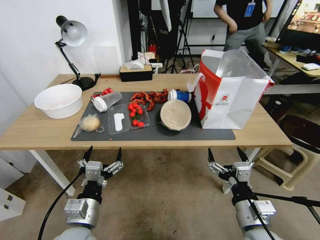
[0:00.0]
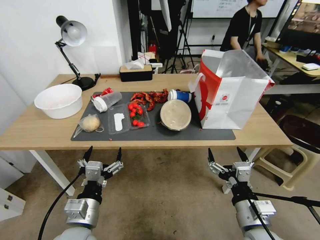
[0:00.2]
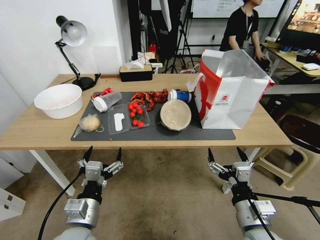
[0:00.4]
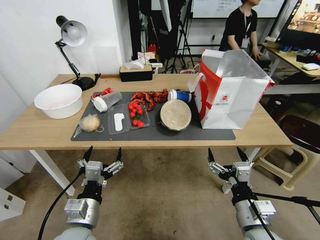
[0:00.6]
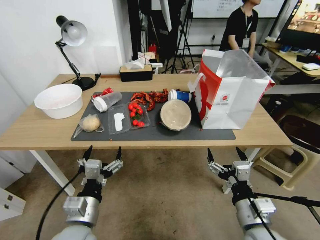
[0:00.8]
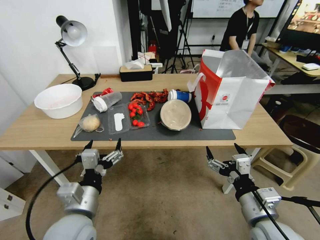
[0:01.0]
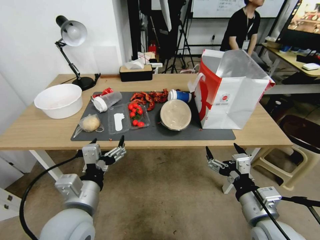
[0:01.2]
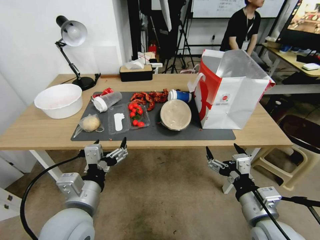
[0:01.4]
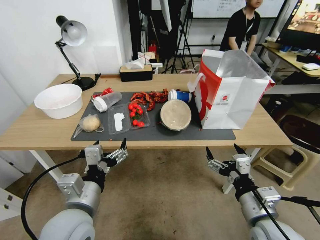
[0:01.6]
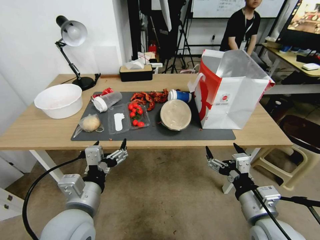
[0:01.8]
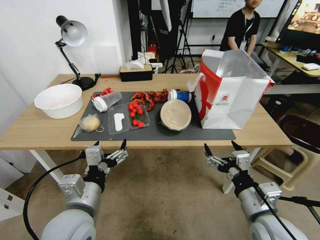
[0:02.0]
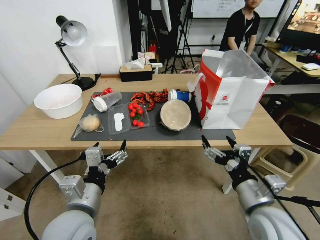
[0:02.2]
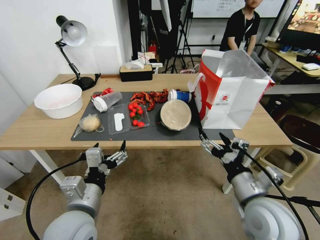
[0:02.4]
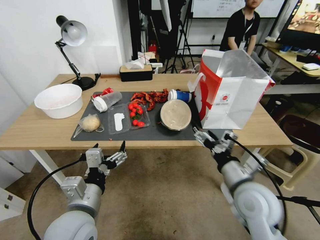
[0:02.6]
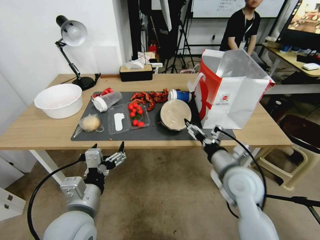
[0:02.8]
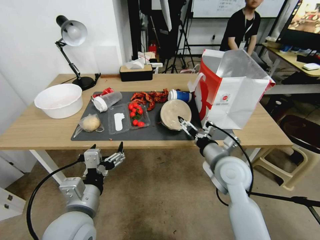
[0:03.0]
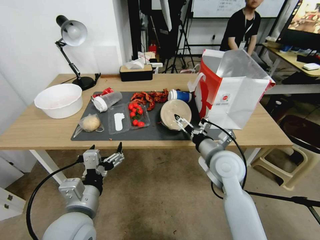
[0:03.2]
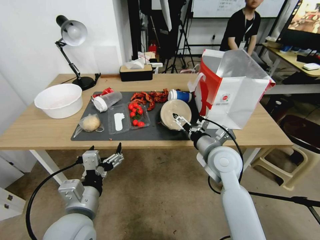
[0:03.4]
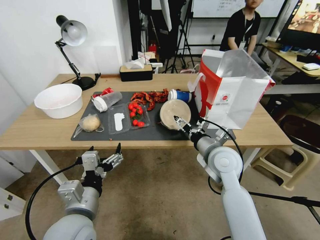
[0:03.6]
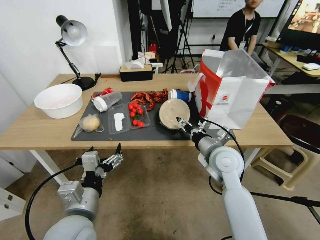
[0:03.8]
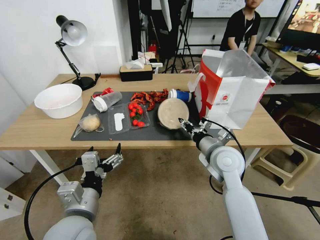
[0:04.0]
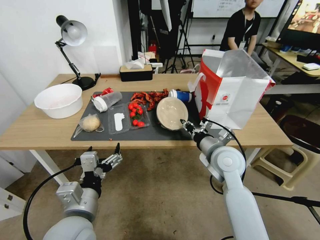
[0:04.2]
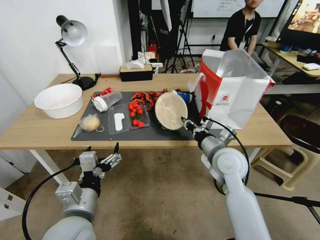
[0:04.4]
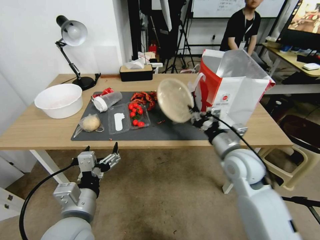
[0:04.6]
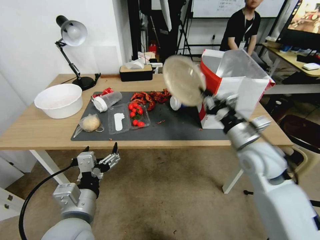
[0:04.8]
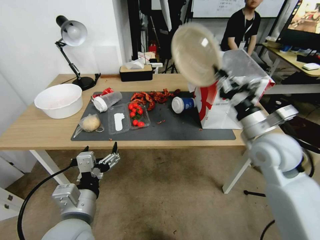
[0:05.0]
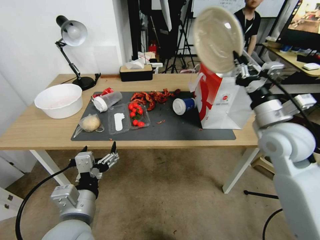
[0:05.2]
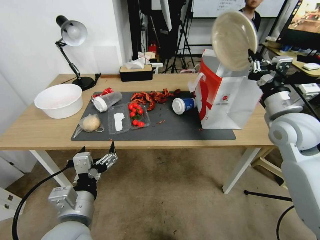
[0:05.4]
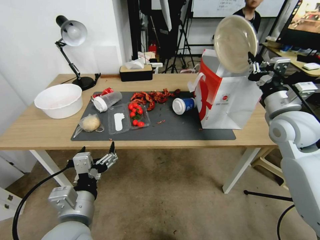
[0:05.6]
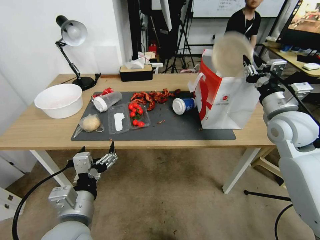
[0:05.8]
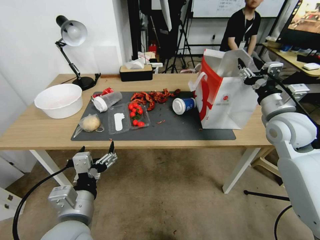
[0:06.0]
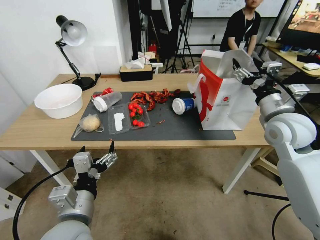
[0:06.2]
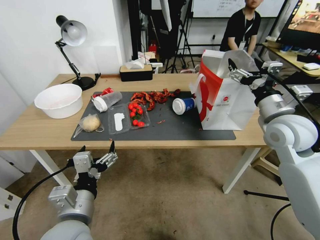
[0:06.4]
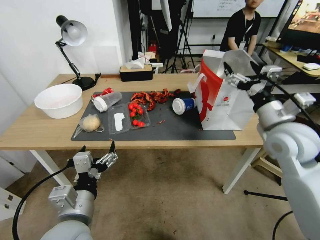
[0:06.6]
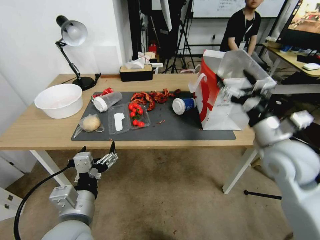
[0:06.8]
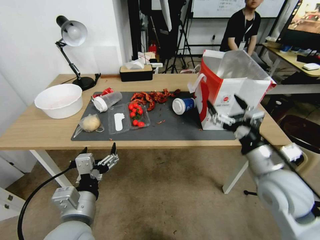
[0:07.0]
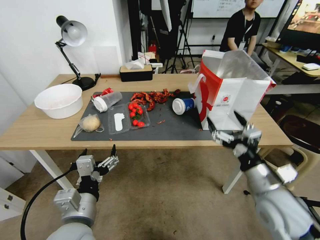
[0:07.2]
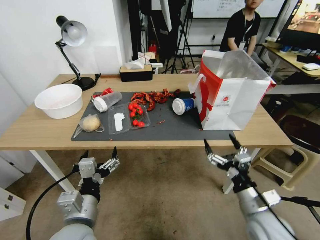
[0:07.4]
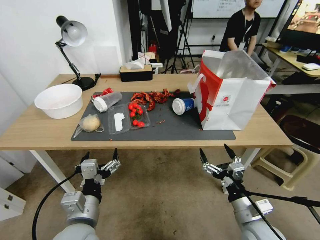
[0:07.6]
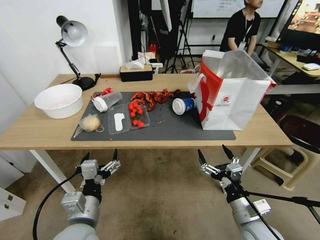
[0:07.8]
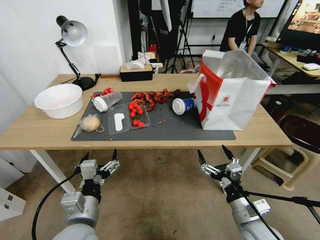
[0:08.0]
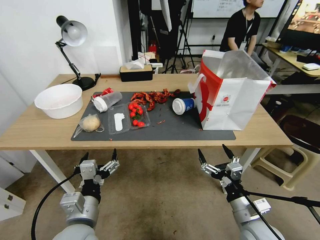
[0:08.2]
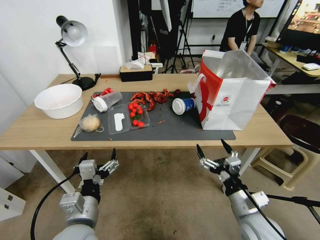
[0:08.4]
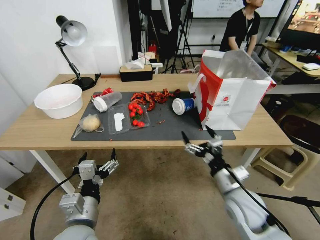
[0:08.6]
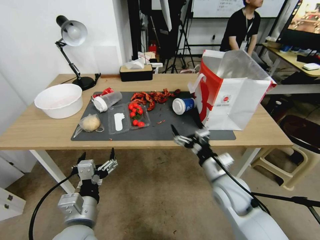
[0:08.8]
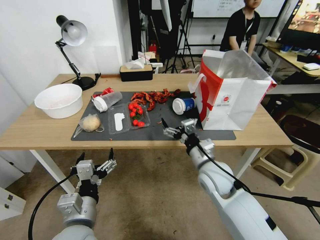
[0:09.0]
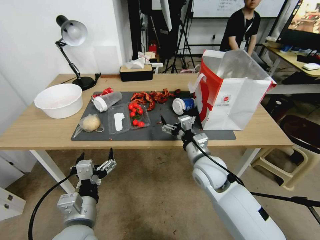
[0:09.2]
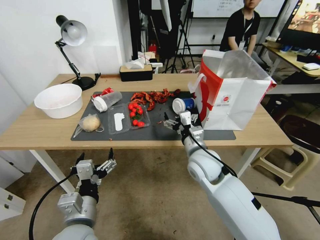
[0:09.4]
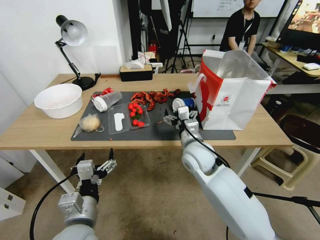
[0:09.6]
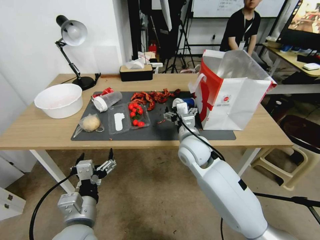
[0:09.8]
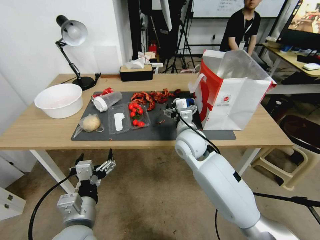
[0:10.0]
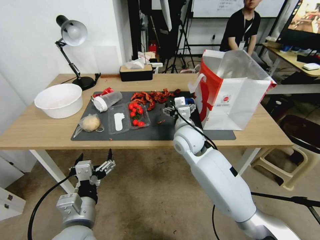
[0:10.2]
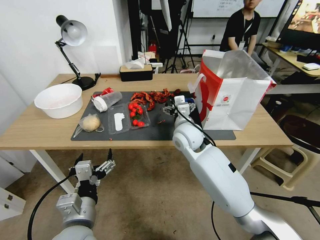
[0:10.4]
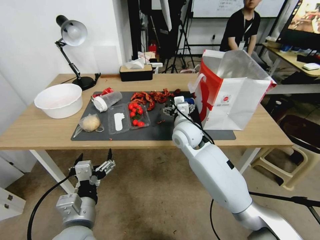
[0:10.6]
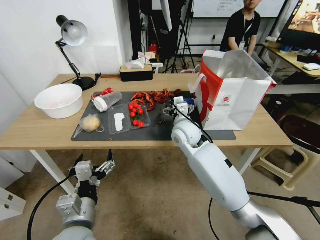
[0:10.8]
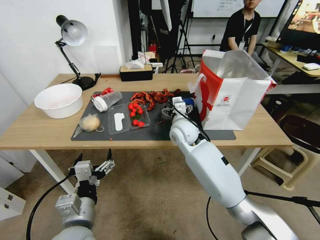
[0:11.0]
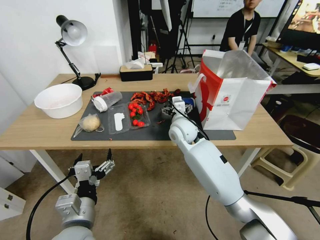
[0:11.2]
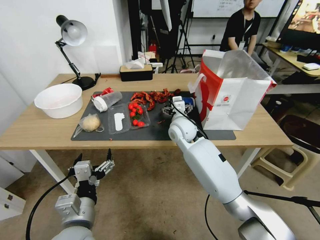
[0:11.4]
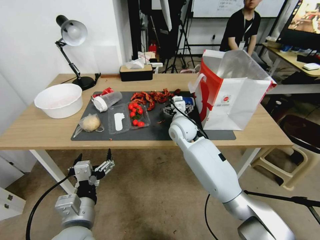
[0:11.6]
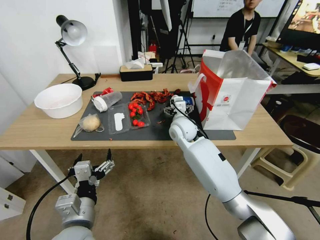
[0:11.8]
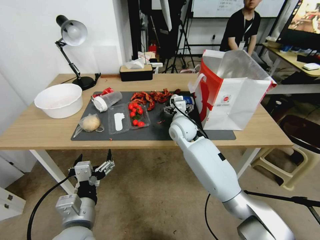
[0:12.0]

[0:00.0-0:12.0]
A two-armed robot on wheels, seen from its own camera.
0:01.6 to 0:03.0: The right gripper is displaced forward by roughly 15 cm.
0:03.0 to 0:04.4: The right gripper closes.
0:04.4 to 0:06.0: The right gripper shifts about 15 cm to the right and upward, and opens its fingers.
0:06.0 to 0:07.6: The right gripper shifts about 30 cm backward and downward, and opens.
0:07.6 to 0:09.0: The right gripper travels forward, to the left and upward by roughly 20 cm.
0:09.0 to 0:10.4: The right gripper travels forward, to the left and upward by approximately 15 cm.
0:10.4 to 0:12.0: The right gripper shifts about 5 cm forward.

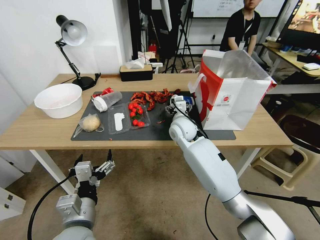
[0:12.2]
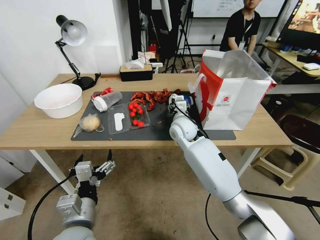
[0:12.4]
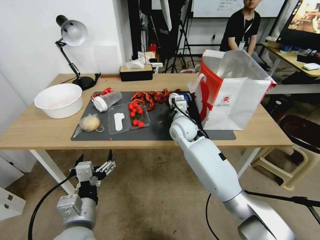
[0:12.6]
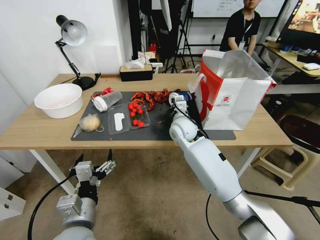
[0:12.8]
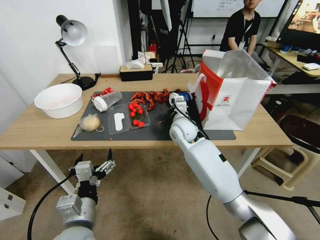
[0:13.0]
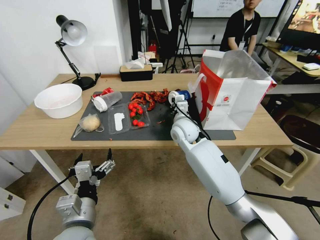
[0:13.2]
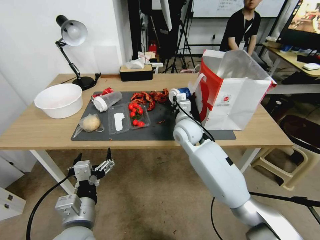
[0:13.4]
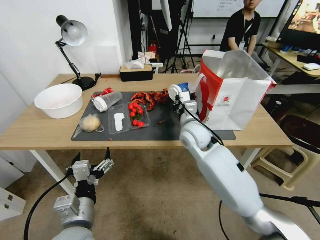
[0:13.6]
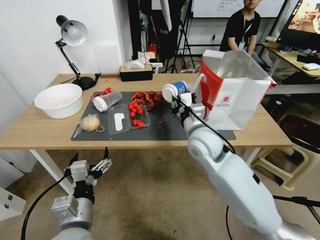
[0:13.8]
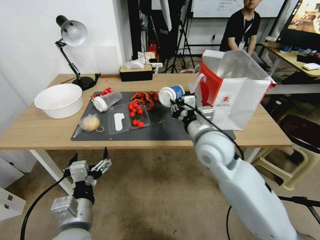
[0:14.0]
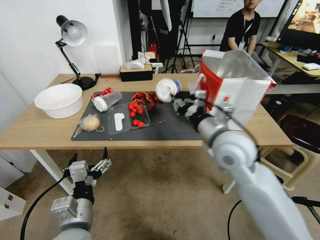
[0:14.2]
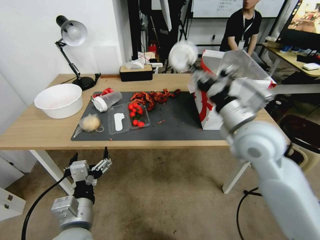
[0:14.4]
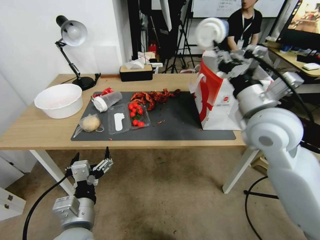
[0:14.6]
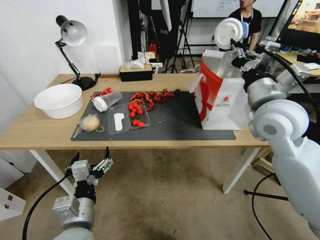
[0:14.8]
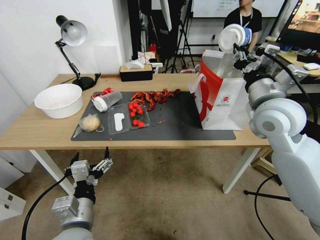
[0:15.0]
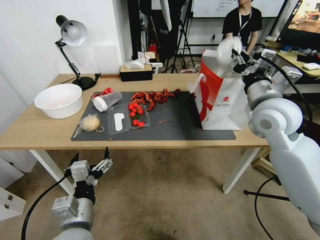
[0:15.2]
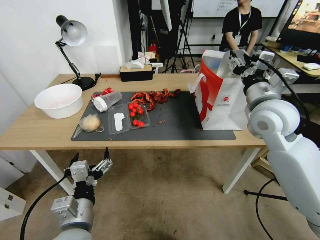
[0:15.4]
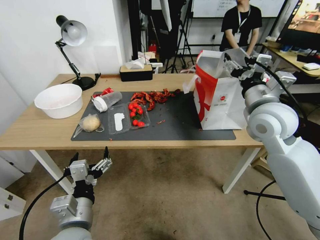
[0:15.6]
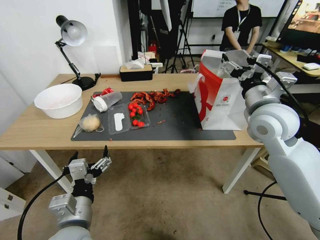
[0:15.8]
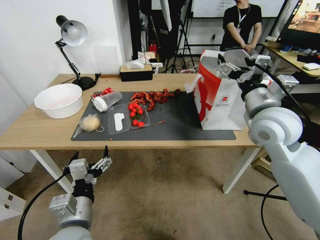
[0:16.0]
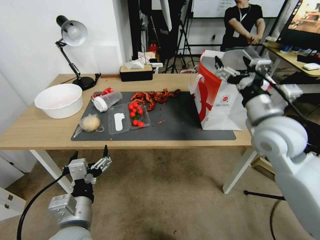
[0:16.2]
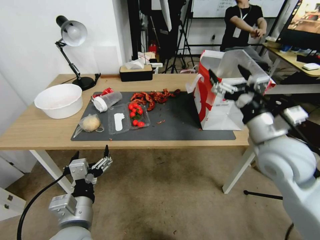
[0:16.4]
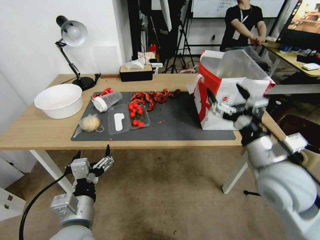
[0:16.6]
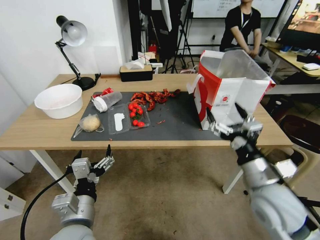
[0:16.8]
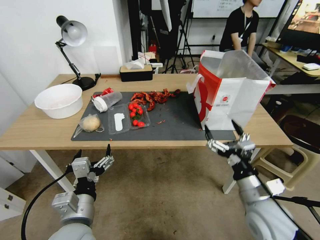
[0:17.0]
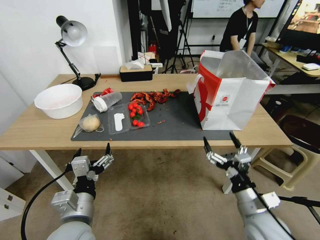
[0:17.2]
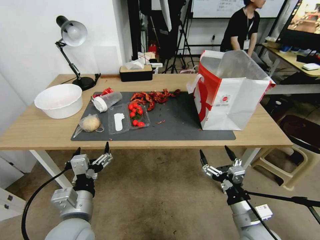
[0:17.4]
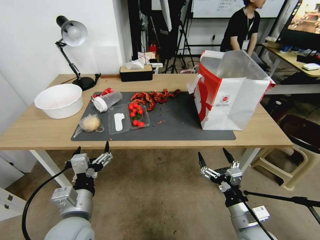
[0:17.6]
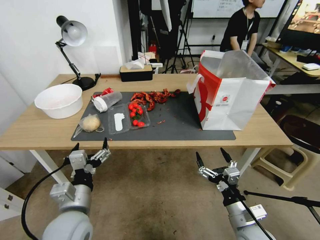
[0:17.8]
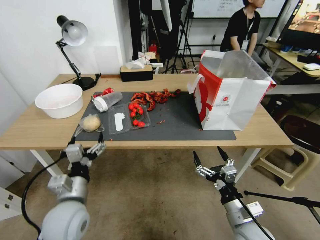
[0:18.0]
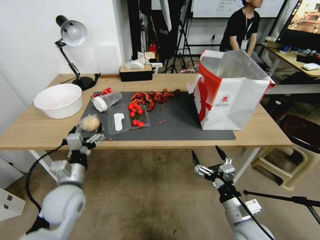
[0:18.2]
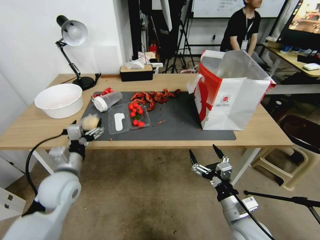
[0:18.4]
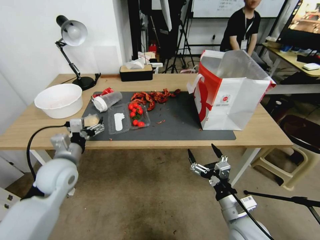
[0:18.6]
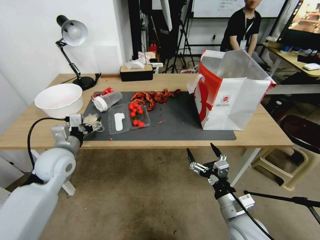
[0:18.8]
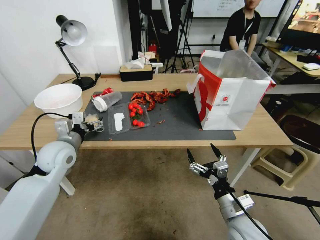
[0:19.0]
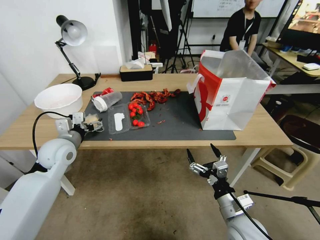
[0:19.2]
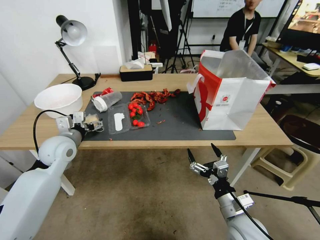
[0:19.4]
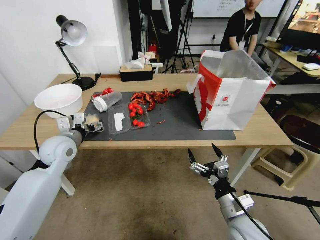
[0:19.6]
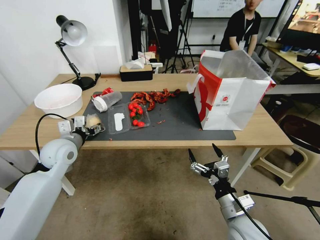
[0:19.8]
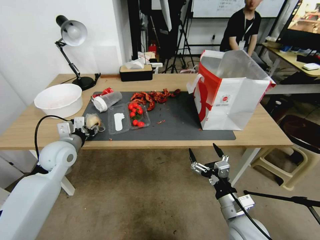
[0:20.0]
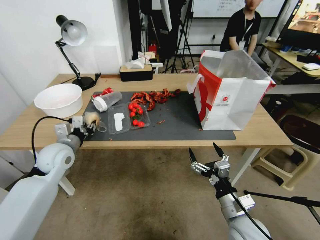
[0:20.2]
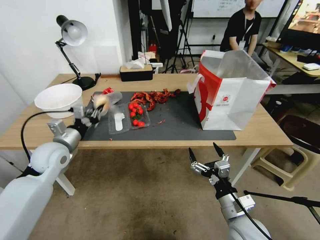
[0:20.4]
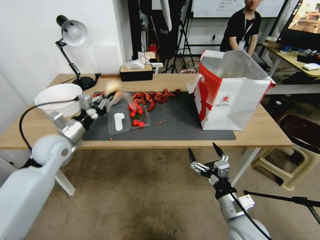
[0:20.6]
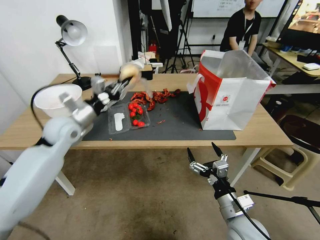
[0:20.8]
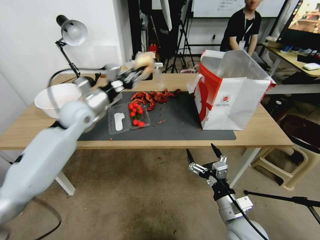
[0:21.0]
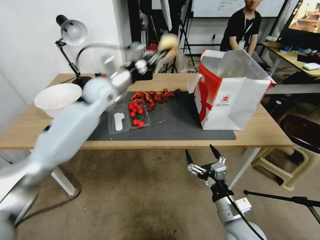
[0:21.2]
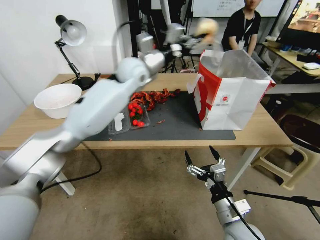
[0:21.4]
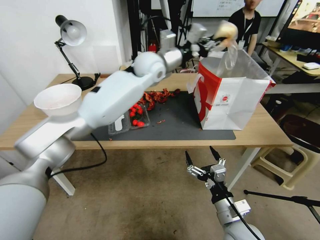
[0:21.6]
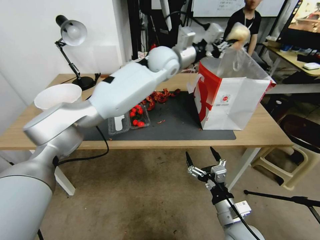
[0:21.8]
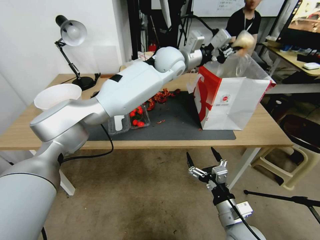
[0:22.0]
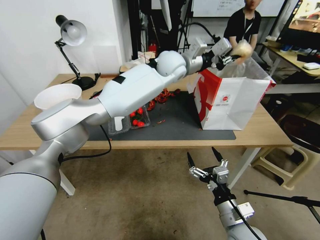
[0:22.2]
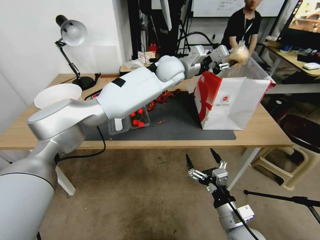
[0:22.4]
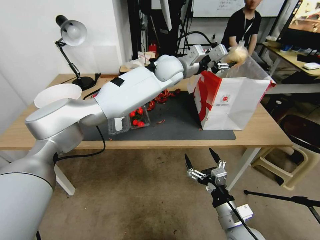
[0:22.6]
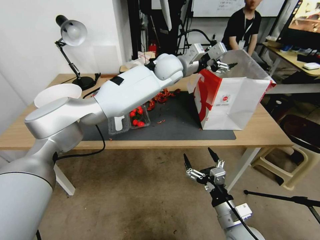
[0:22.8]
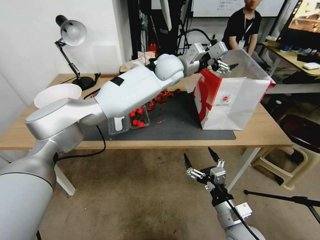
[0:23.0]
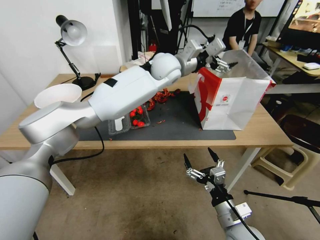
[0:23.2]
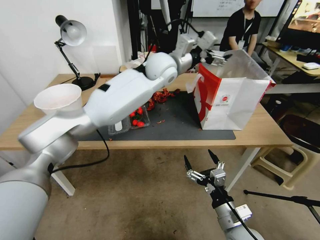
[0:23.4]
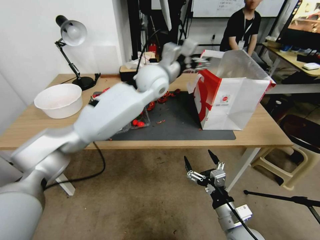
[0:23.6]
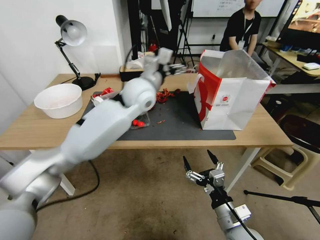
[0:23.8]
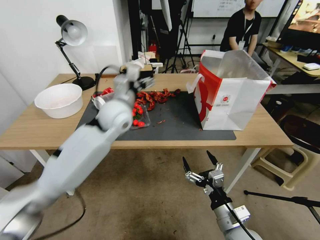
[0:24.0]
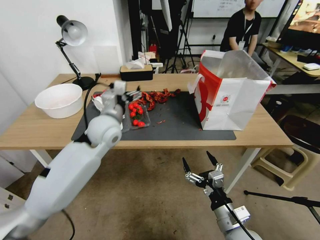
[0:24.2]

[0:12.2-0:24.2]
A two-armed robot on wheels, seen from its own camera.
0:12.2 to 0:13.8: The right gripper shifts approximately 10 cm backward, and closes up.
0:13.8 to 0:15.2: The right gripper travels to the right and upward by some 20 cm.
0:15.2 to 0:16.6: The right gripper travels backward and downward by some 15 cm, and opens its fingers.
0:16.6 to 0:18.2: The left gripper travels forward by approximately 5 cm. Meanwhile the right gripper goes roughly 20 cm downward and backward.
0:18.2 to 0:19.8: The left gripper moves forward and to the left, roughly 15 cm.
0:19.8 to 0:21.2: The left gripper travels upward, forward and to the right by some 20 cm, and closes.
0:21.2 to 0:22.6: The left gripper travels to the right by approximately 20 cm, and opens up.
0:22.6 to 0:24.2: The left gripper is displaced to the left, backward and downward by roughly 30 cm, and opens.
